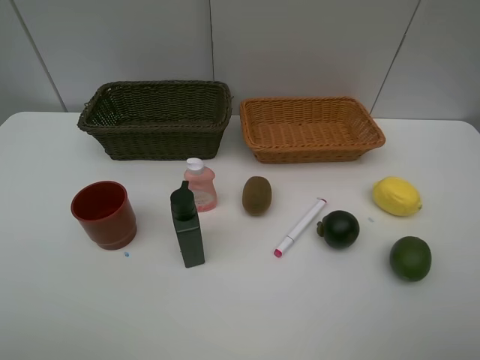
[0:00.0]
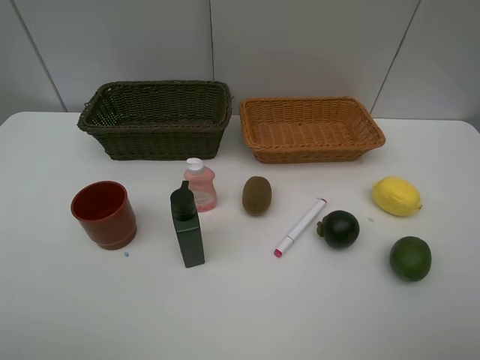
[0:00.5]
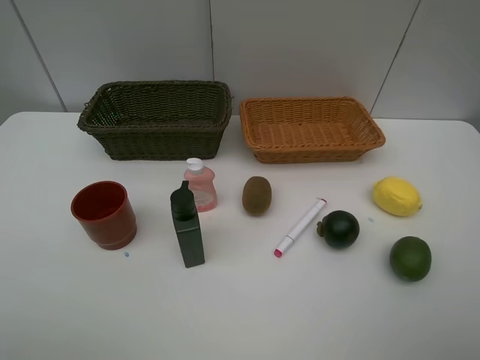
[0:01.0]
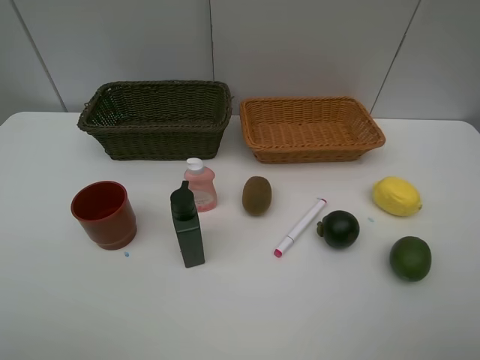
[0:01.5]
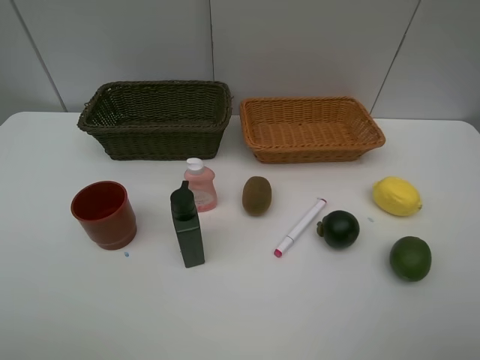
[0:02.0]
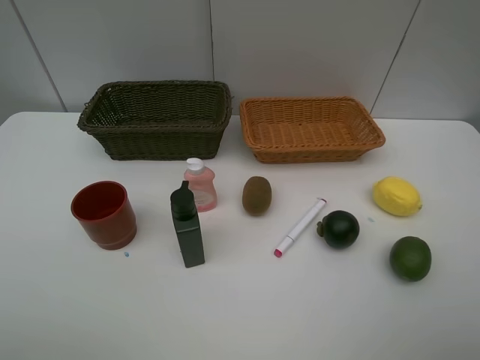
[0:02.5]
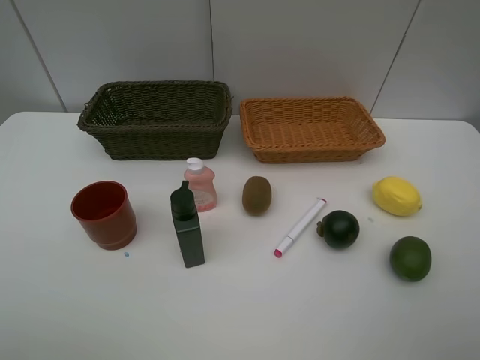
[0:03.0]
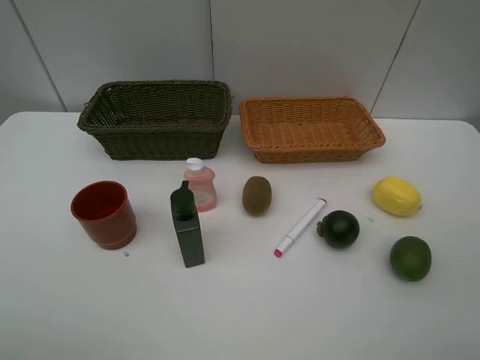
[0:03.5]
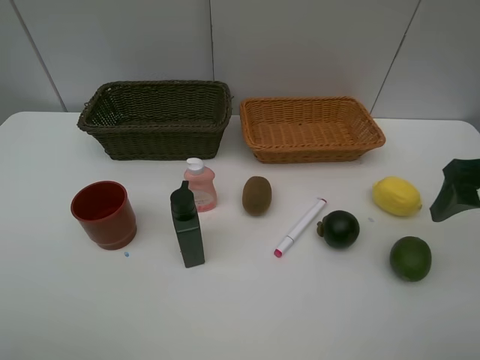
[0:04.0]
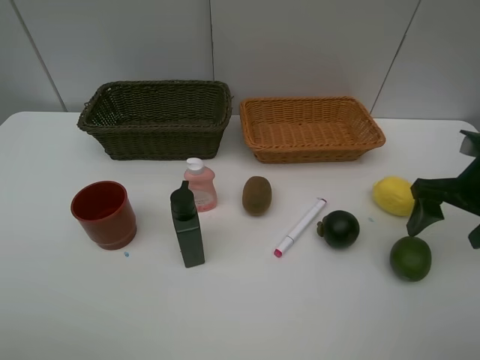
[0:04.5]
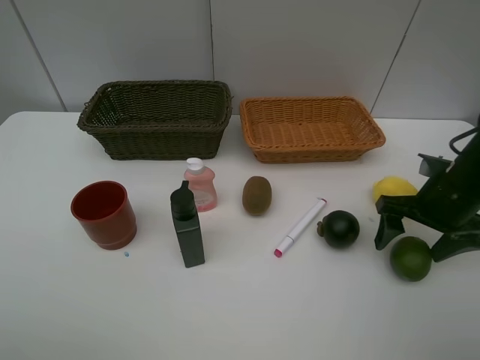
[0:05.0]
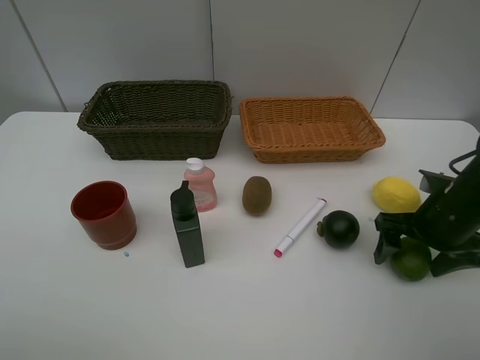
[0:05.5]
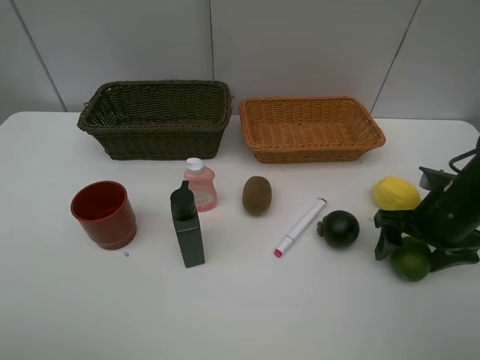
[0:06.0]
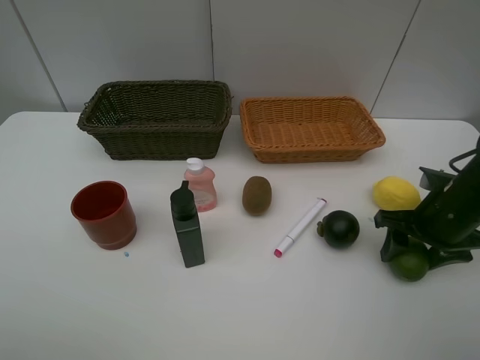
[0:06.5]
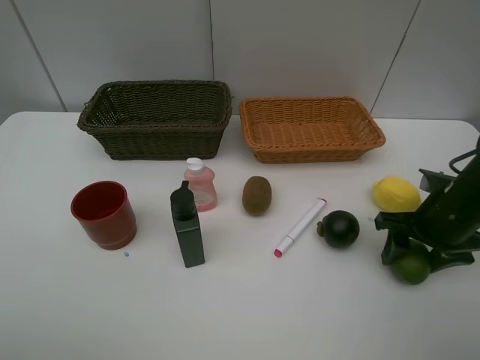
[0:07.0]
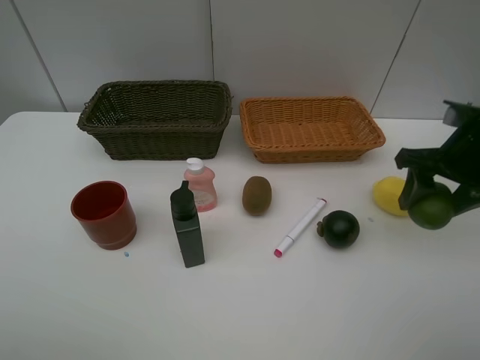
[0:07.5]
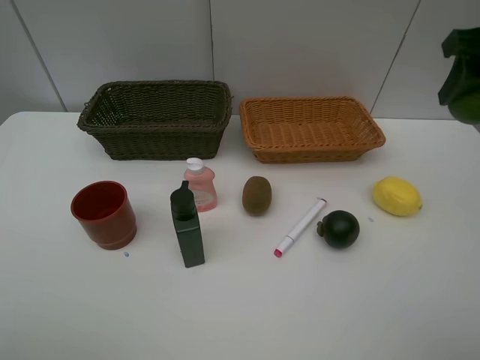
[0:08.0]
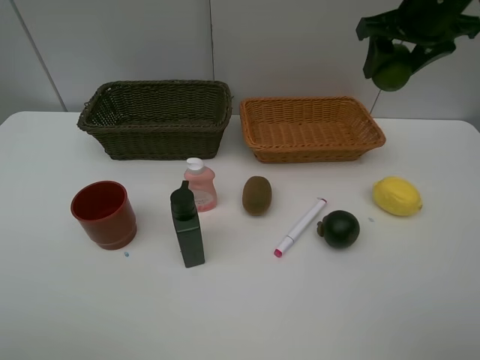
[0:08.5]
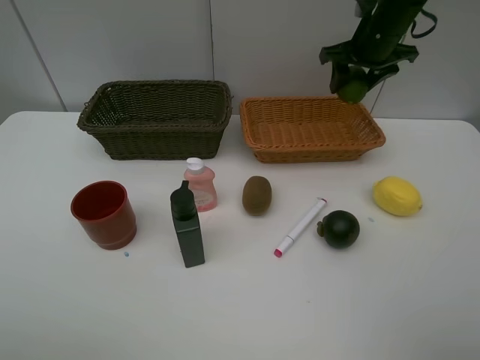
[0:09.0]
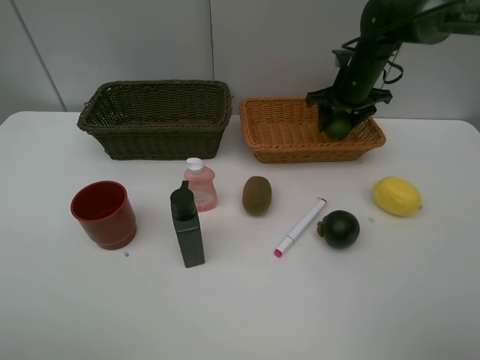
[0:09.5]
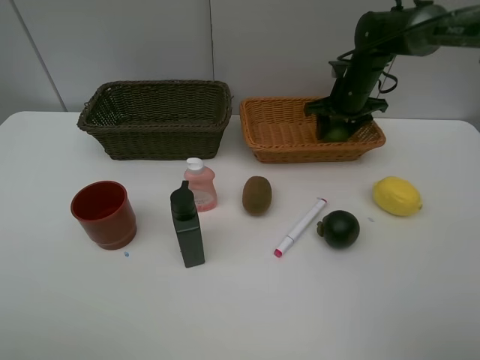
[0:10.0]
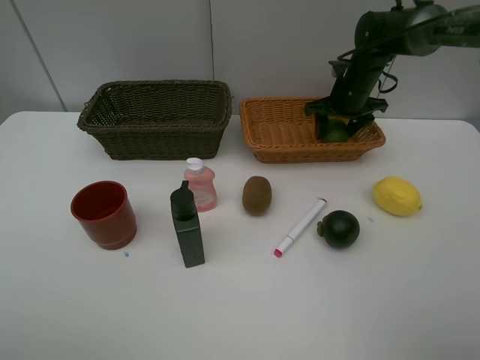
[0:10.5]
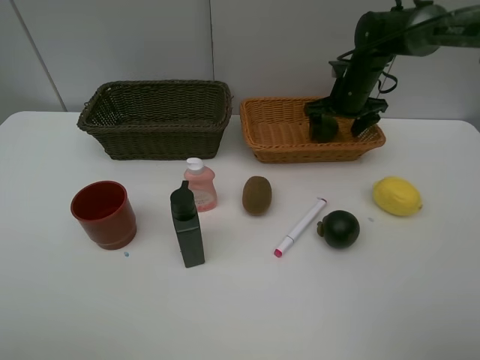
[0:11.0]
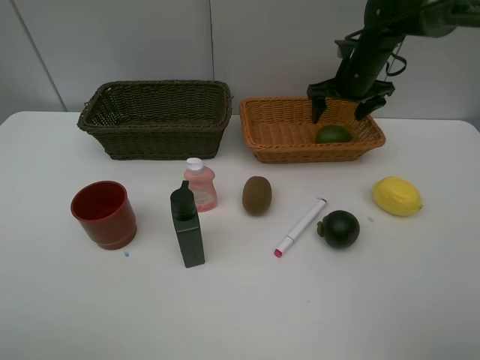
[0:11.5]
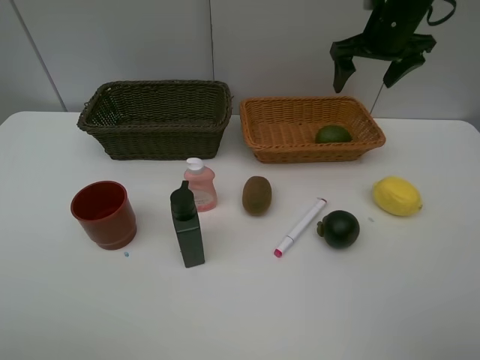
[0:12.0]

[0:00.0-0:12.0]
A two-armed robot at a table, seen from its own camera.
Task of the whole recording: Place multiple objects separately in different baskets.
Step, 0:00.0 to 0:07.0: Pick up the lime with right gripper.
Step, 0:07.5 to 0:11.5: Place the lime in the light basket with right gripper.
0:00.0 to 0:02.0: Neither gripper changes place.
0:02.0 to 0:04.0: The right gripper moves forward, approximately 20 cm.
0:04.0 to 0:06.0: The right gripper moves downward, roughly 10 cm.
0:06.0 to 0:08.0: The right gripper moves upward, about 20 cm.
0:08.0 to 0:10.0: The right gripper is displaced forward, downward and to the left by roughly 30 cm.
0:10.0 to 0:12.0: The right gripper shifts some 15 cm upward, and opens up.

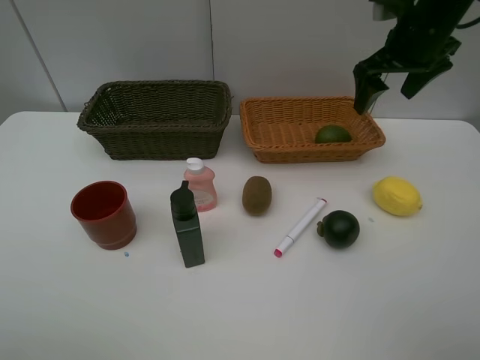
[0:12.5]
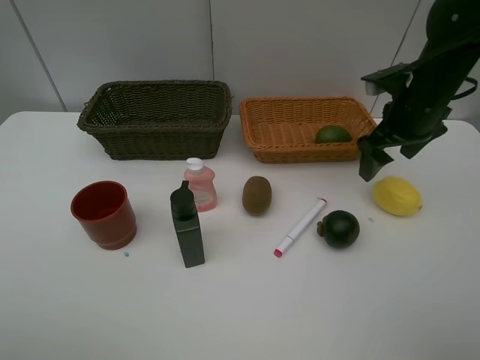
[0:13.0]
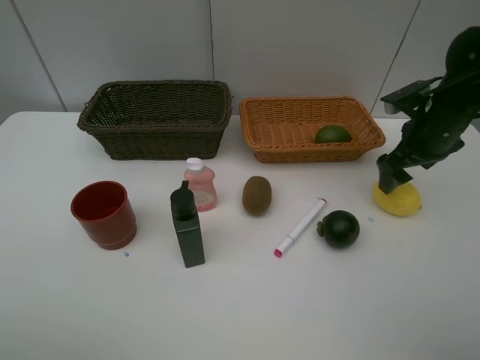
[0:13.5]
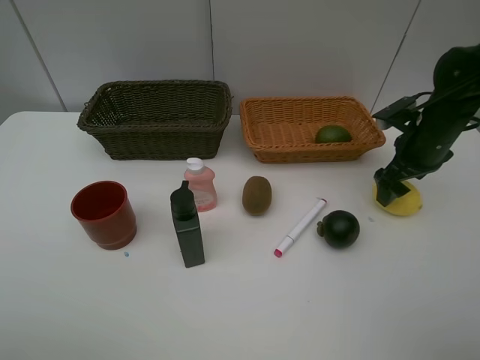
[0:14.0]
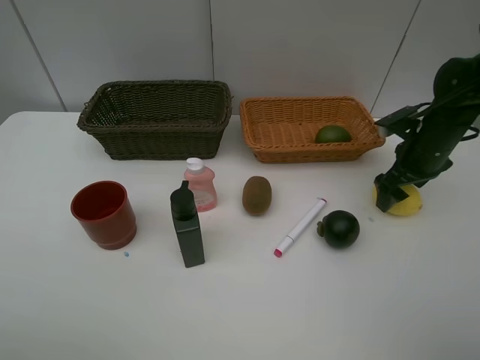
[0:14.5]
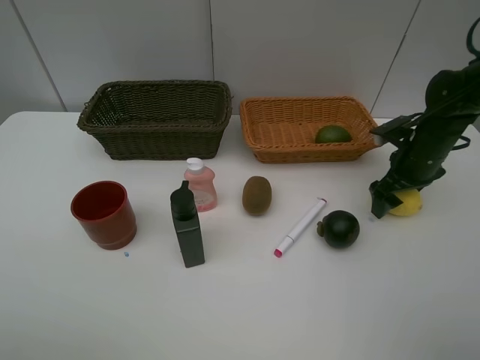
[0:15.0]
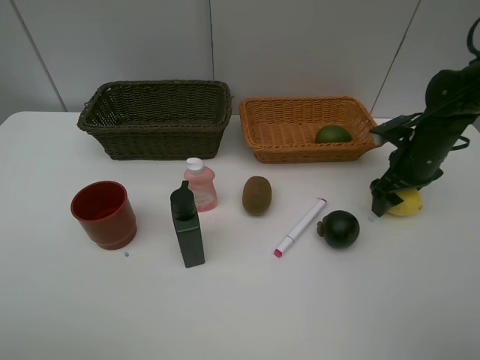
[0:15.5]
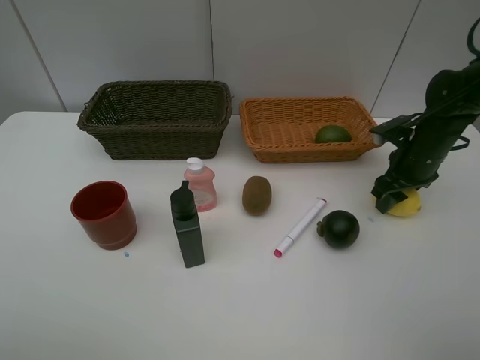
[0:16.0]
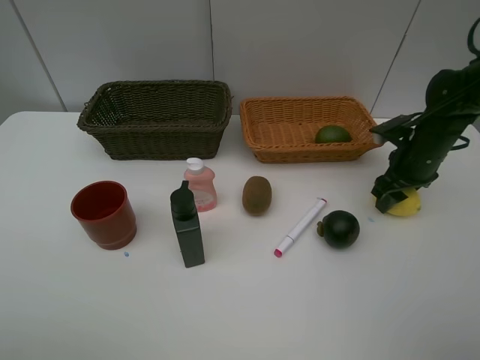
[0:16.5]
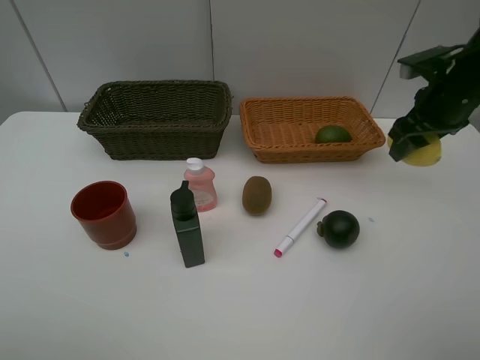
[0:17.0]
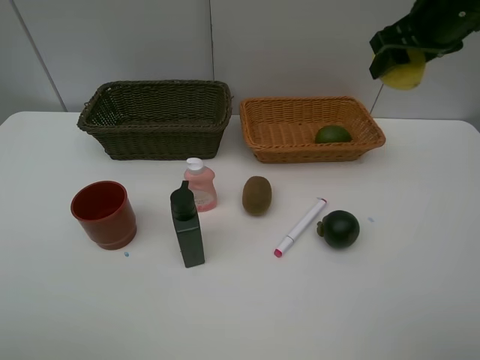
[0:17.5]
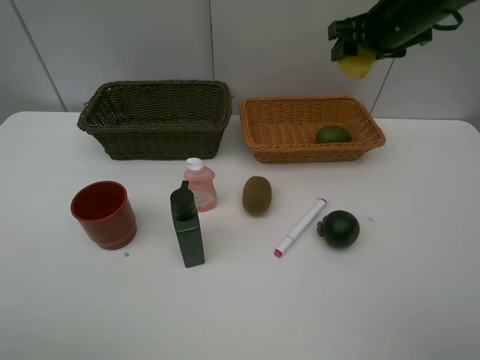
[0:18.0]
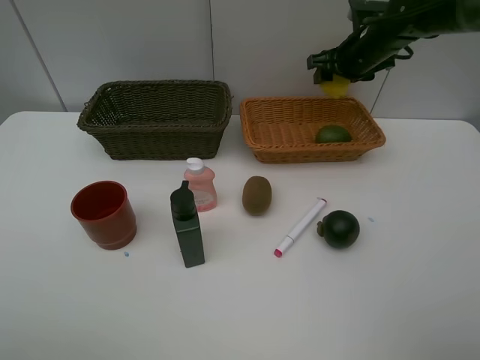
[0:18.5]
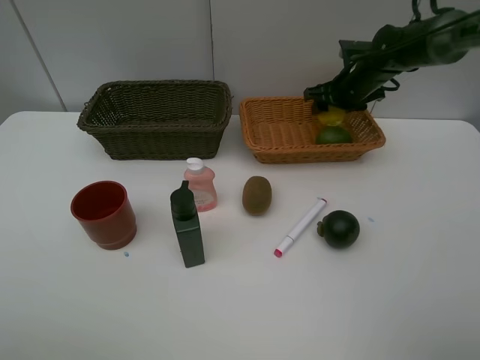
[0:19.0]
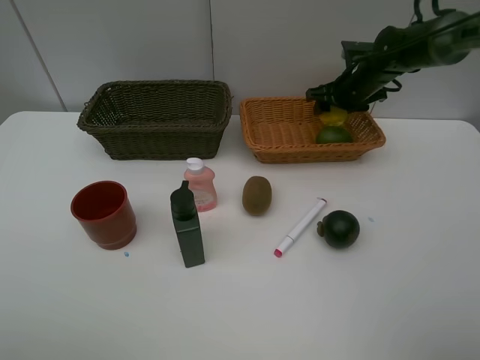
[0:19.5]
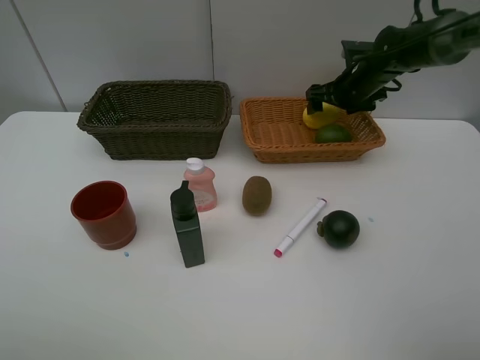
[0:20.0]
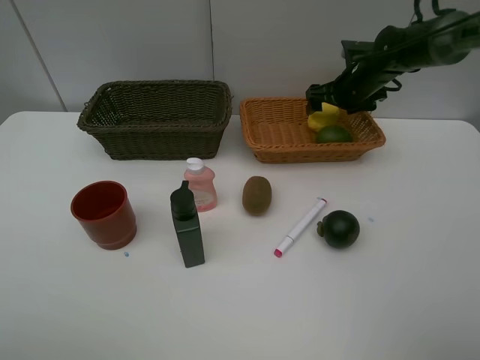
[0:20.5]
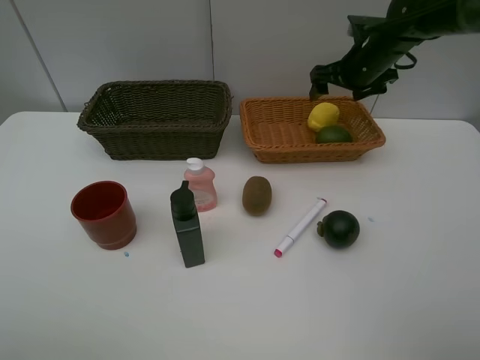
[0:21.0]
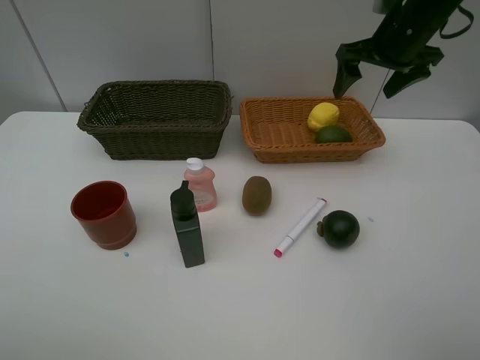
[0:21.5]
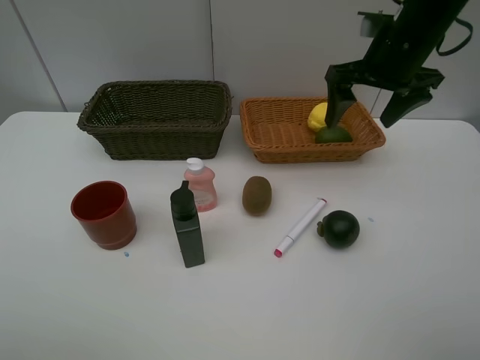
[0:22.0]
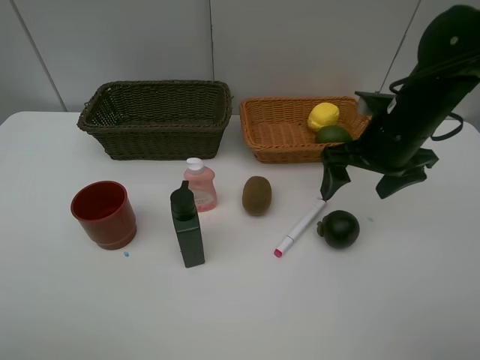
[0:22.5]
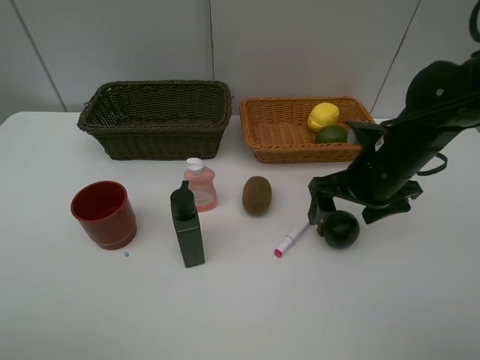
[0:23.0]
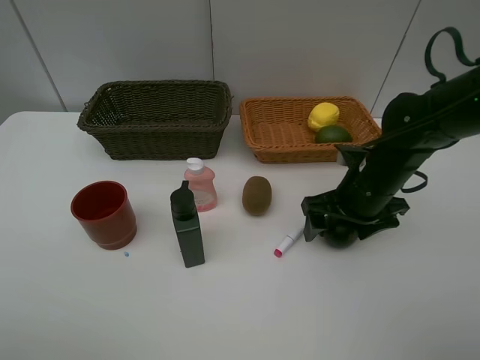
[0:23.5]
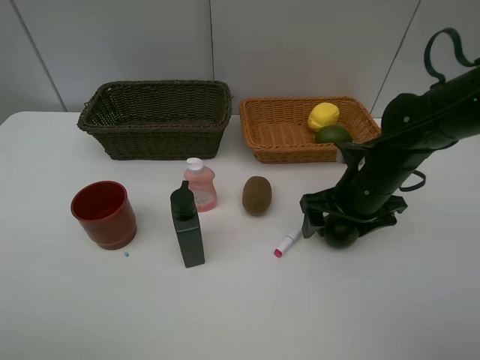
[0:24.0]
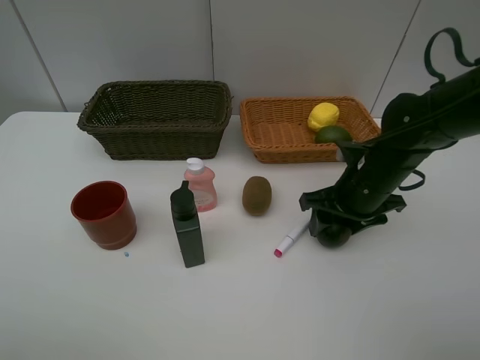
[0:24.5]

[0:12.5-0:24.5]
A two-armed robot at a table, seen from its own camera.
Task of the whole recording: Place multiple objects separately in different baskets.
Step, 0:12.5 to 0:16.5: Pick up the lemon with right gripper.
Step, 0:17.0 to 0:21.0: Place the lemon in the light basket with right gripper.
0:12.5 to 0:14.5: The right gripper is displaced downward by about 15 cm.
0:14.5 to 0:16.5: The right gripper closes up.
0:16.5 to 0:18.5: The right gripper is displaced forward, upward and to the left by roughly 20 cm.
0:18.5 to 0:20.5: The right gripper travels downward by roughly 5 cm, and opens its fingers.
0:20.5 to 0:22.5: The right gripper is displaced backward by approximately 20 cm.
0:22.5 to 0:24.5: The right gripper heads downward, covering some 10 cm, and closes its fingers.

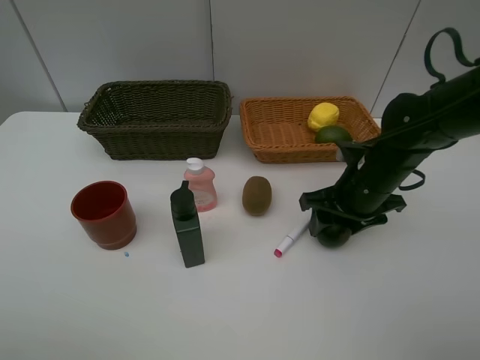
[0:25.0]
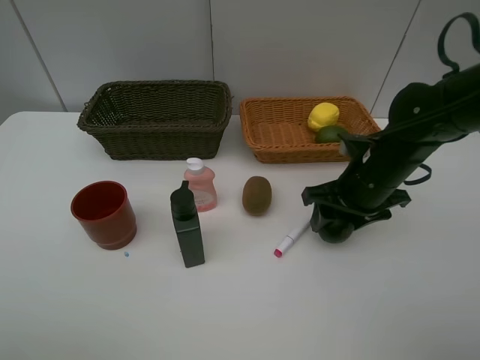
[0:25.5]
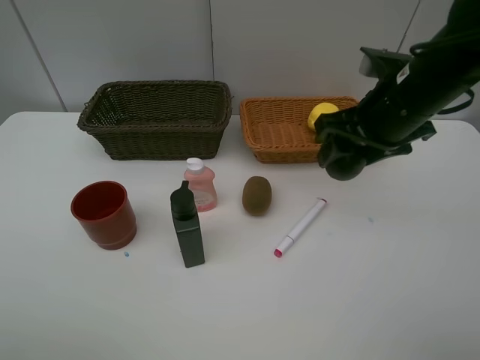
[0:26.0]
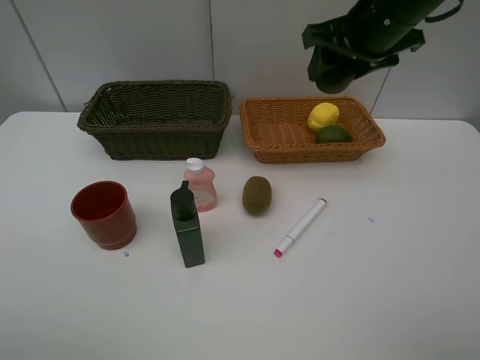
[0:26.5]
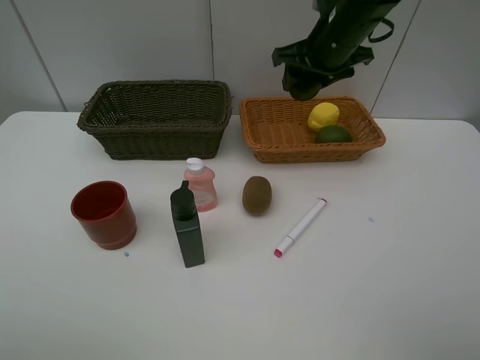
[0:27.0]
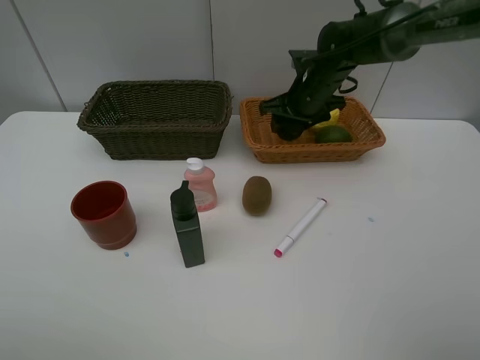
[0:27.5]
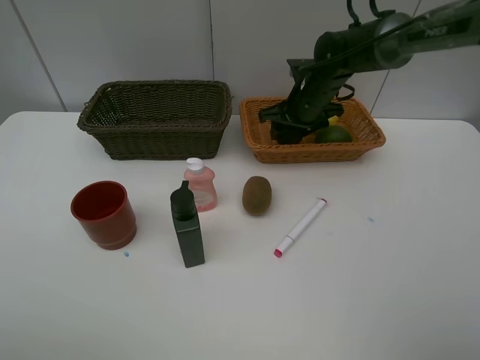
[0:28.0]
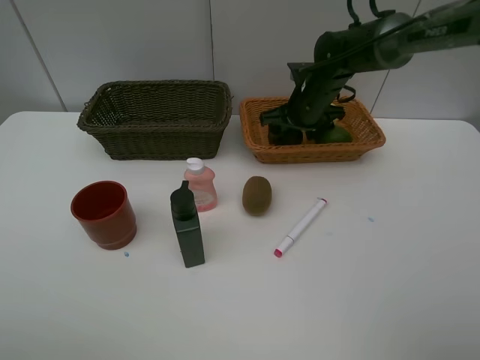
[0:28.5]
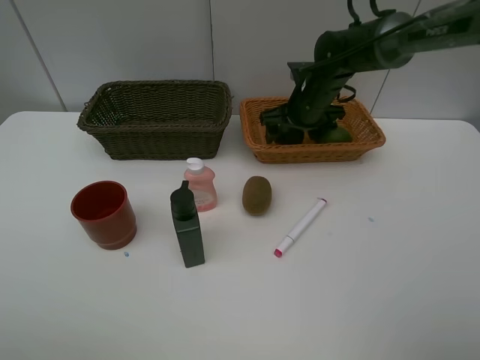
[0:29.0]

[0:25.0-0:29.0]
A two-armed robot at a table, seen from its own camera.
Task of the whole recording: Place multiple objects separately in different baskets.
0:25.0 to 0:27.0: The right gripper moves forward and upward, some 20 cm.
0:27.0 to 0:29.0: The right gripper is displaced downward by about 10 cm, and opens up.
